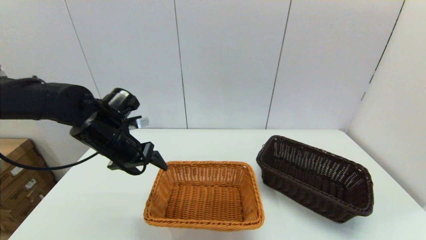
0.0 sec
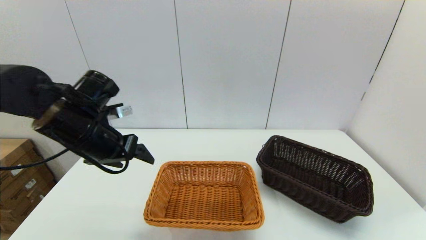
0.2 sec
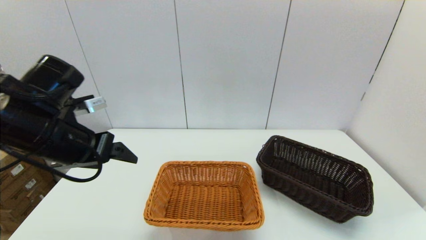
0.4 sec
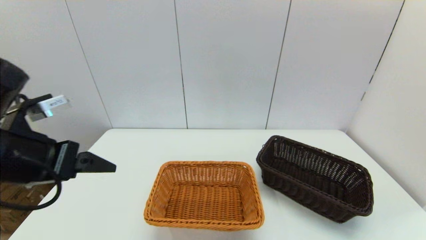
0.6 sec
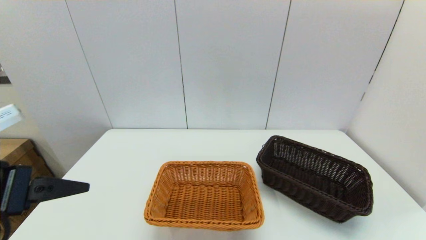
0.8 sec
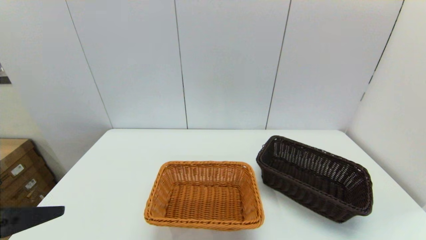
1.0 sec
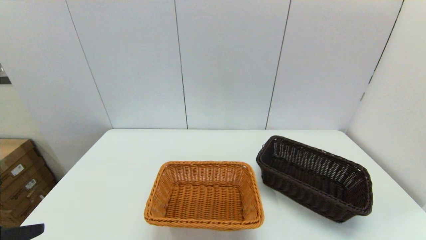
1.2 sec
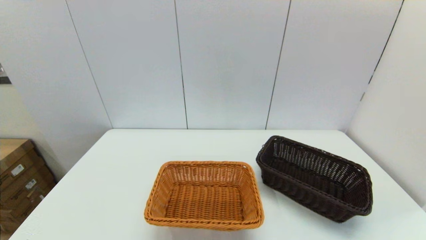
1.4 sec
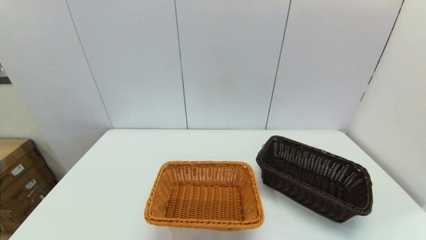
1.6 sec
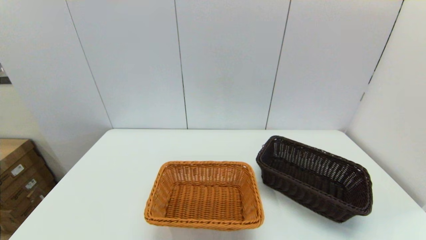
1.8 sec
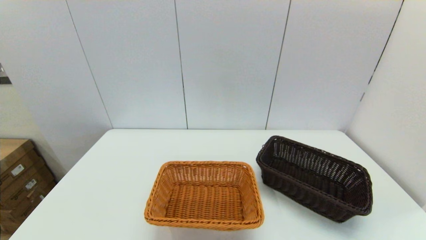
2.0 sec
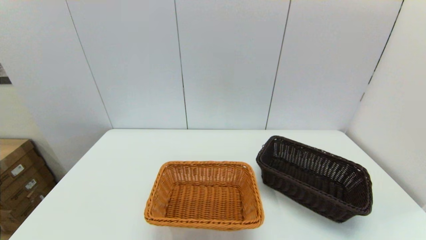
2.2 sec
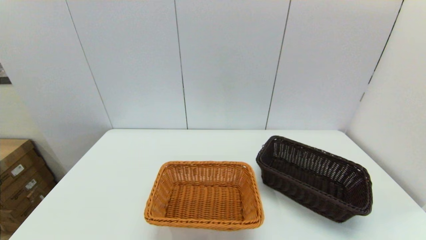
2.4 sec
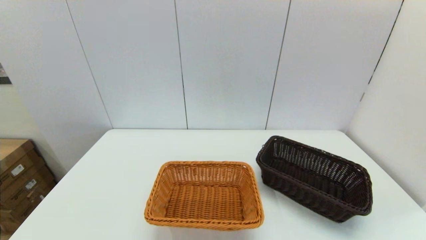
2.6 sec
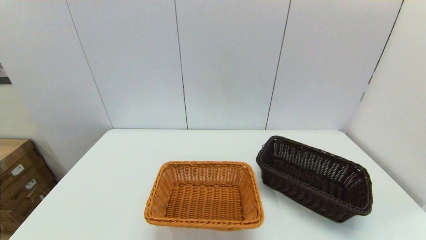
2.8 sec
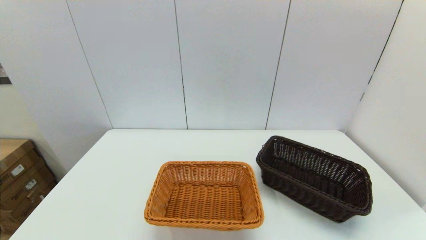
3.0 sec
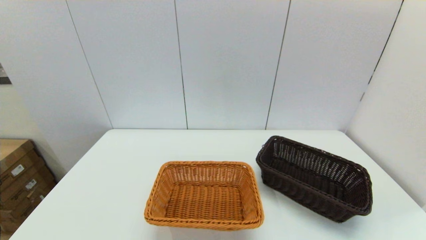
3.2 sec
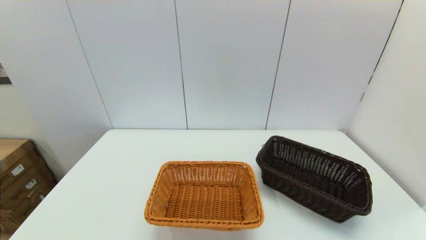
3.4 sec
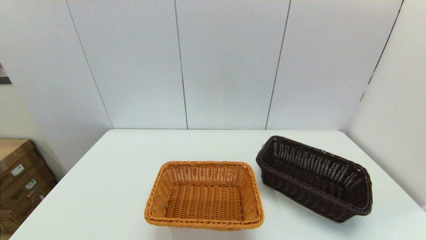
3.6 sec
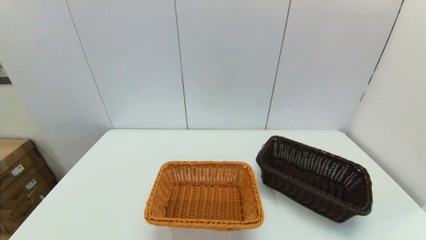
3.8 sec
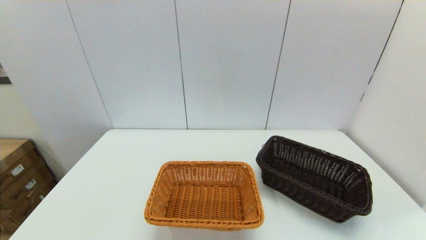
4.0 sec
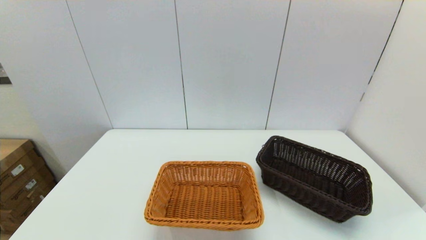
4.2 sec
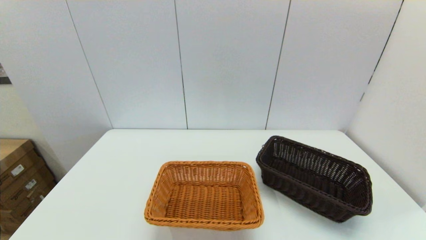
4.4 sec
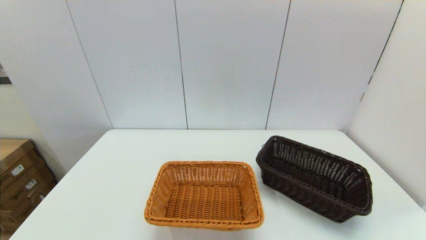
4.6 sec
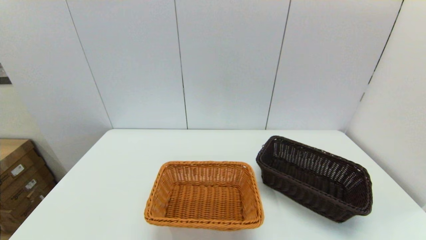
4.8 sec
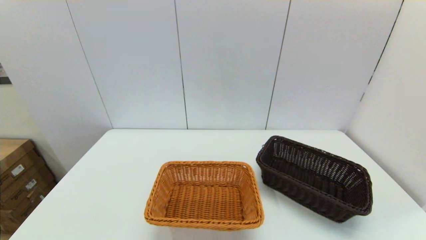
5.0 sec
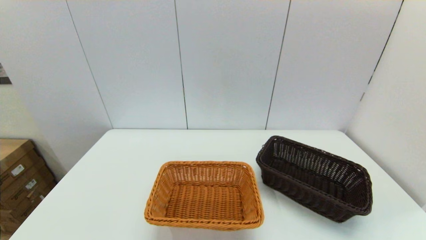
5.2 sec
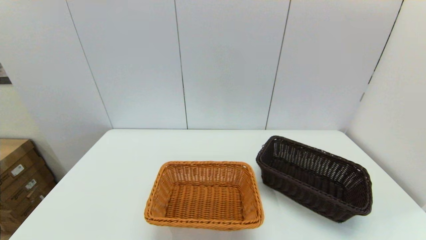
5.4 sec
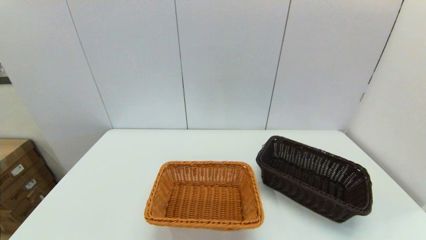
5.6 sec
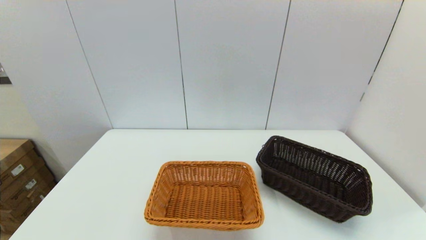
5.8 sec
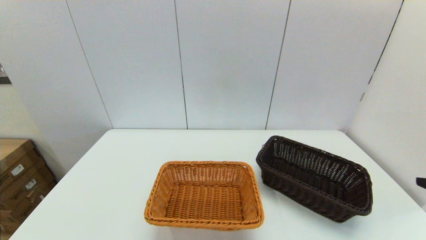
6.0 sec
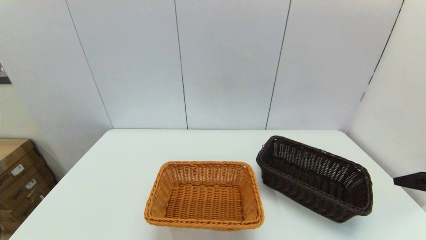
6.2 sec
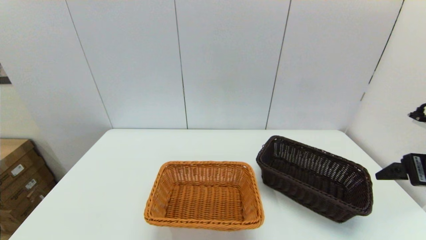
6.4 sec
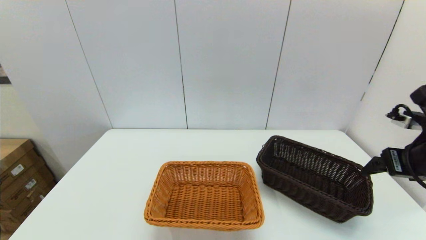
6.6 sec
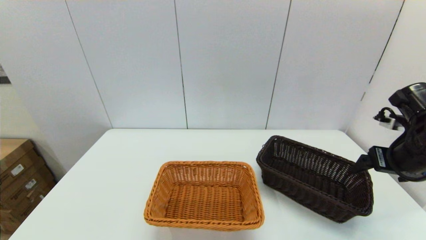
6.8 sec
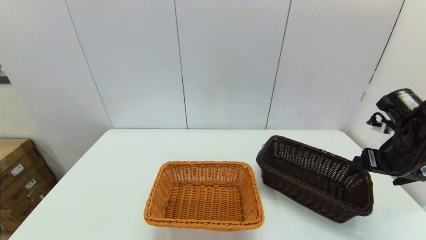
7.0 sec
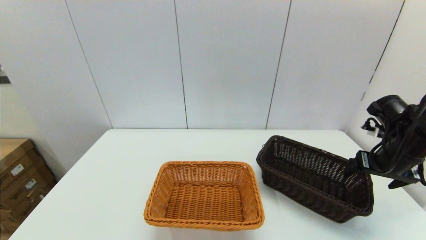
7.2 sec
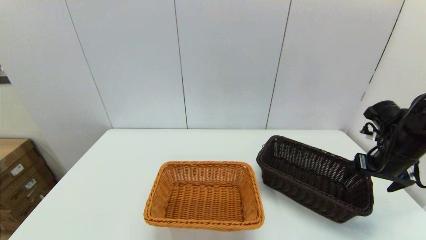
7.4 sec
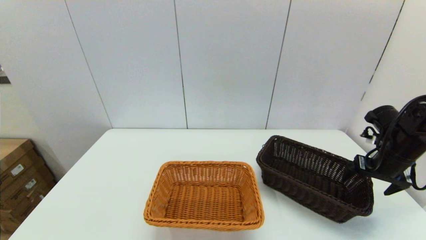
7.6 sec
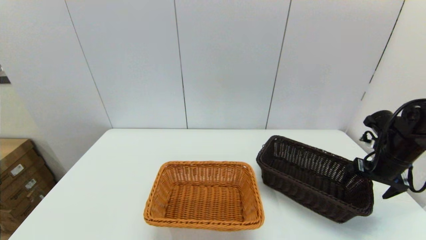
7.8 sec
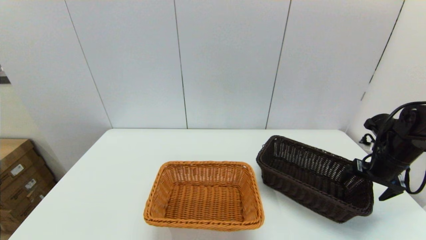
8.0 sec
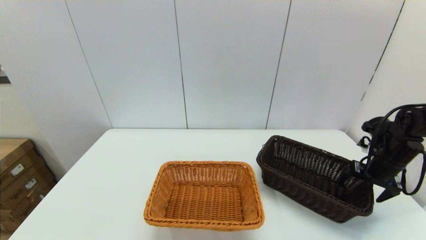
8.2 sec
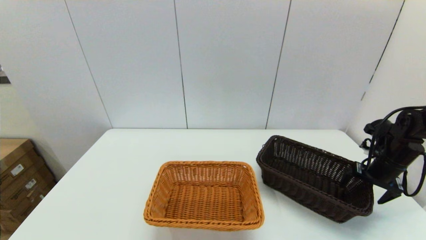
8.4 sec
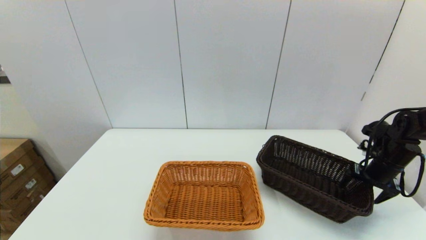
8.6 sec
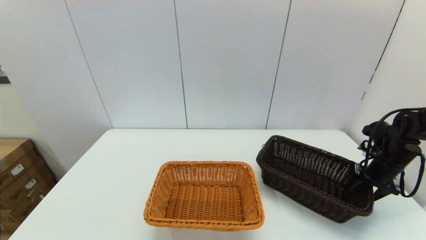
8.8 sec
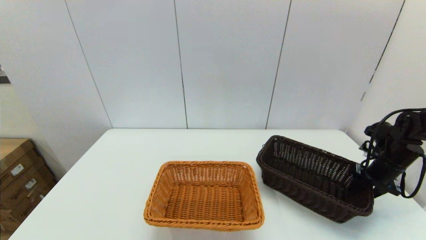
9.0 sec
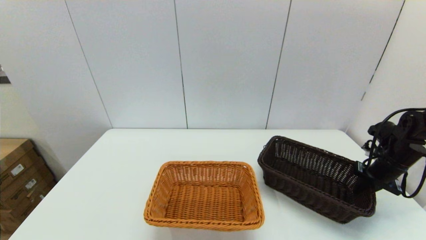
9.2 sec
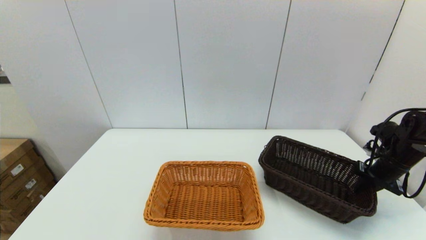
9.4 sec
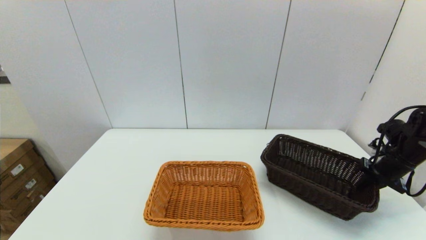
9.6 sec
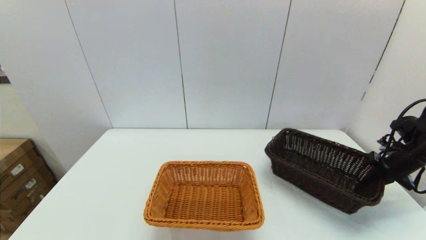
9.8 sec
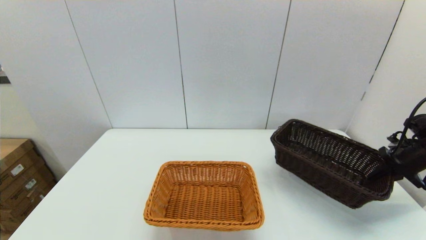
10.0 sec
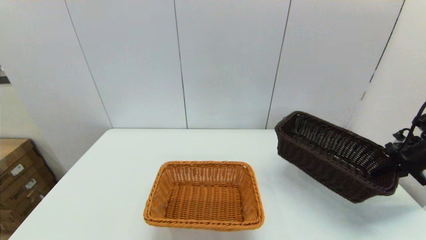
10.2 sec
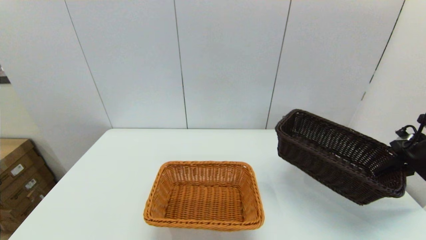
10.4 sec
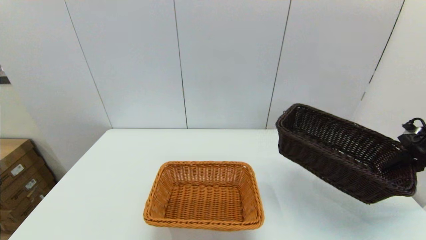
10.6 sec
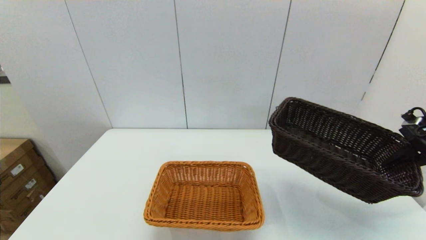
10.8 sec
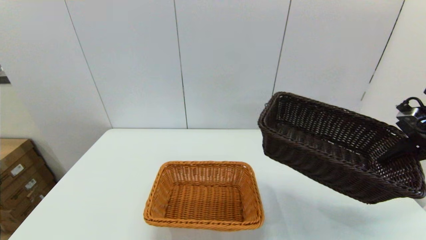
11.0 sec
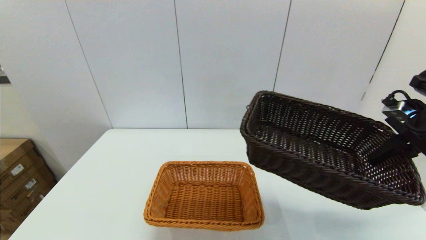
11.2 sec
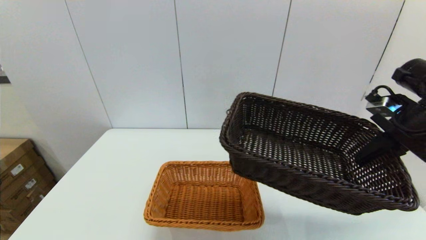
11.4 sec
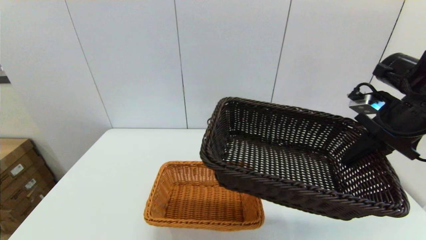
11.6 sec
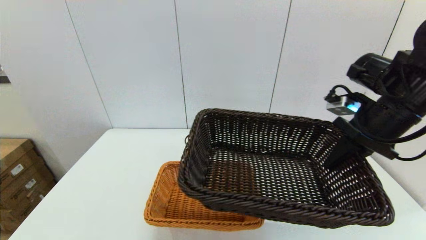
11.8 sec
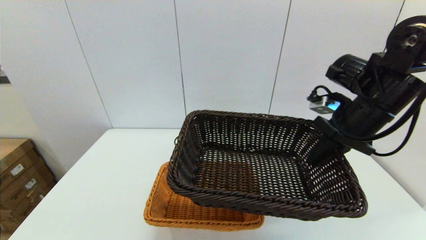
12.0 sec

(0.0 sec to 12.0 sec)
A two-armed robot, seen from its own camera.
Task of the whole recording: stack a basket on top of another basket.
Step, 0.2 sec - 9.0 sec: Grasp the dark basket with the right gripper.
0.0 sec - 1.6 sec: The left gripper goes some 30 cm backward.
6.0 sec - 7.6 sec: The right gripper goes about 25 cm forward and downward.
7.6 sec - 9.0 sec: The right gripper goes about 5 cm downward, and closes up.
9.0 sec - 10.4 sec: The right gripper travels upward and to the right by some 10 cm.
10.4 sec - 12.0 sec: The right gripper moves to the left and upward, roughly 25 cm.

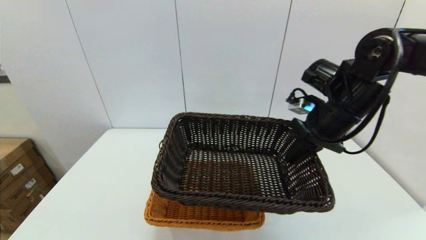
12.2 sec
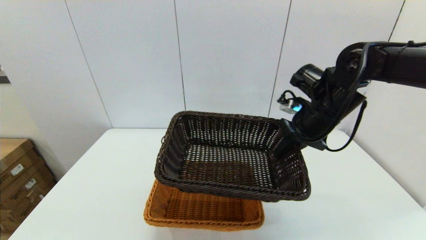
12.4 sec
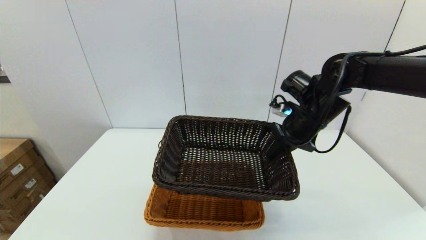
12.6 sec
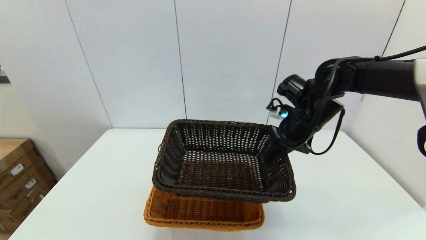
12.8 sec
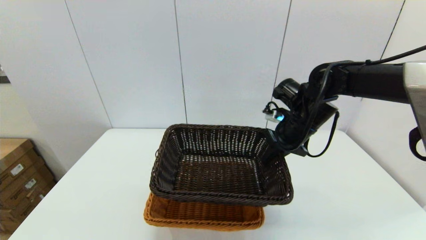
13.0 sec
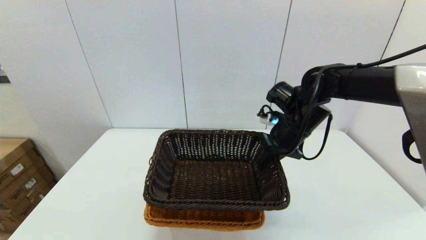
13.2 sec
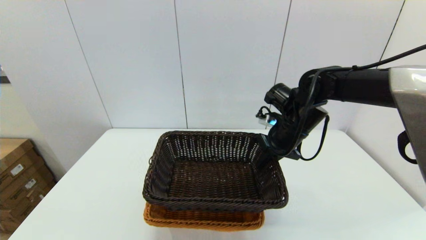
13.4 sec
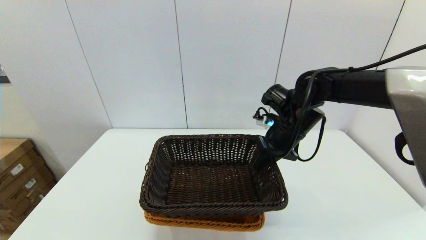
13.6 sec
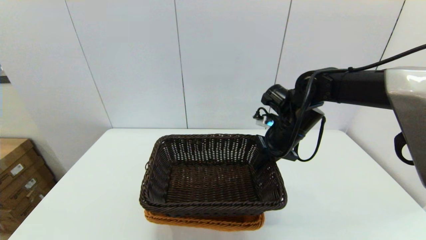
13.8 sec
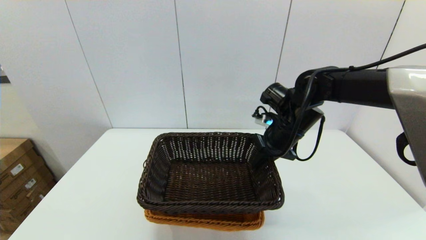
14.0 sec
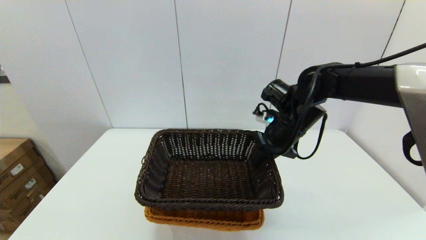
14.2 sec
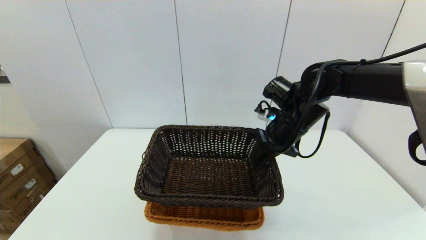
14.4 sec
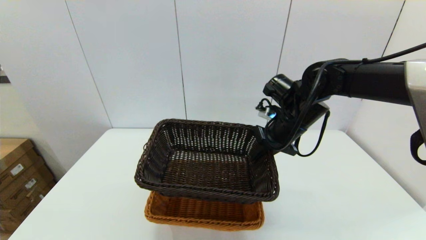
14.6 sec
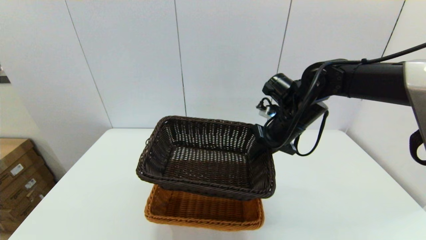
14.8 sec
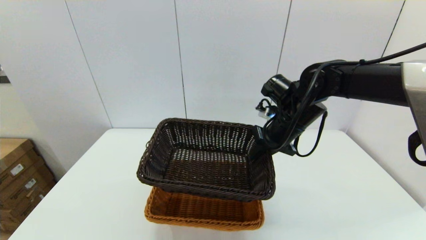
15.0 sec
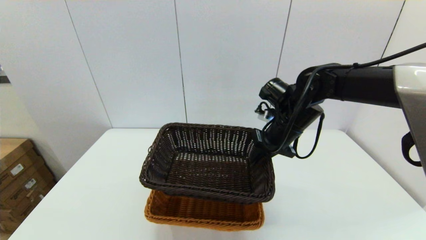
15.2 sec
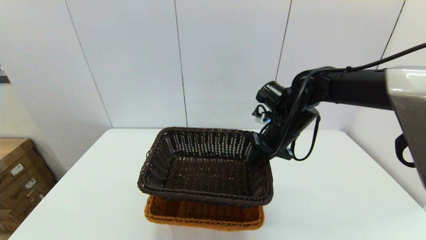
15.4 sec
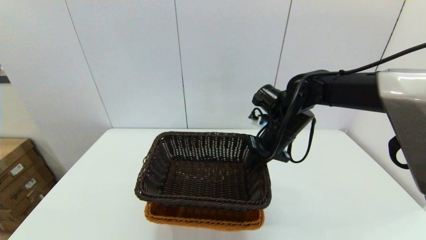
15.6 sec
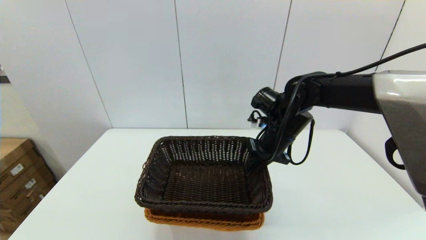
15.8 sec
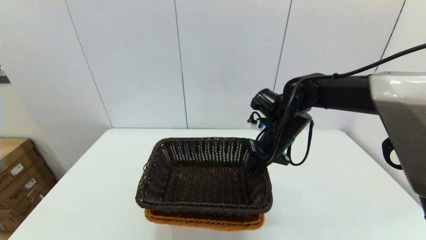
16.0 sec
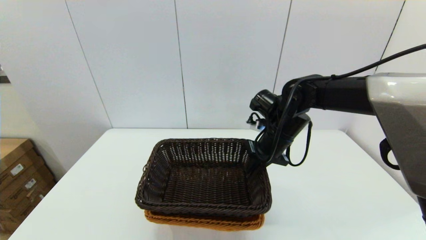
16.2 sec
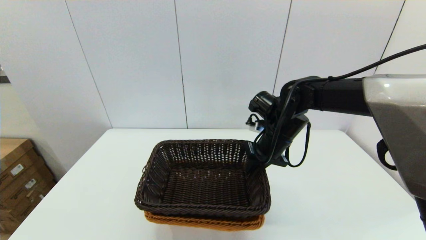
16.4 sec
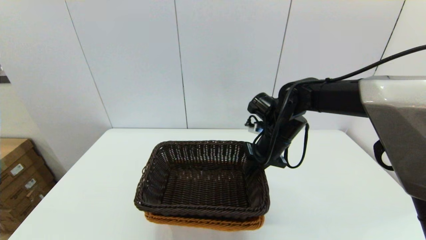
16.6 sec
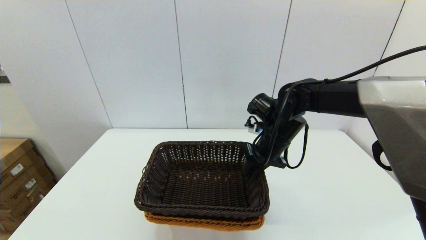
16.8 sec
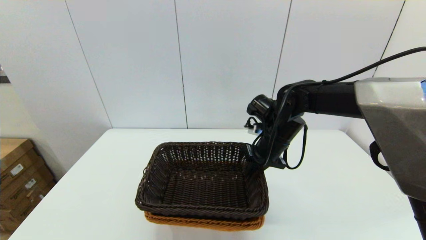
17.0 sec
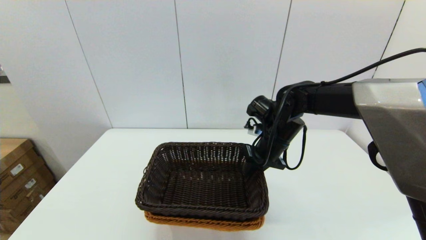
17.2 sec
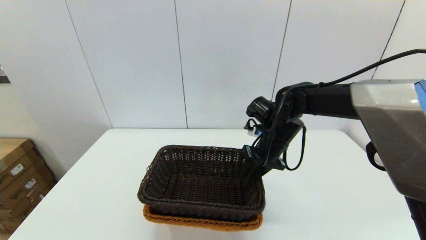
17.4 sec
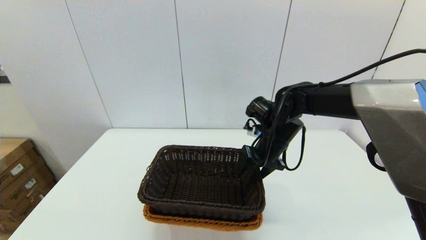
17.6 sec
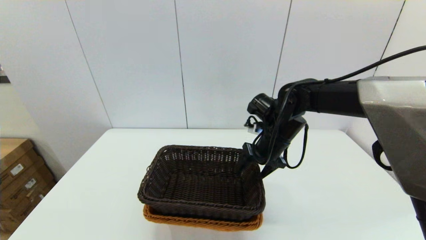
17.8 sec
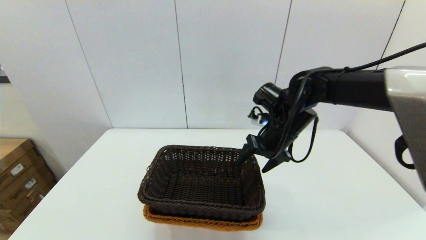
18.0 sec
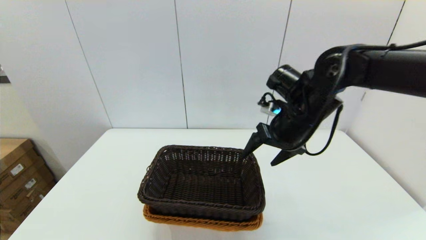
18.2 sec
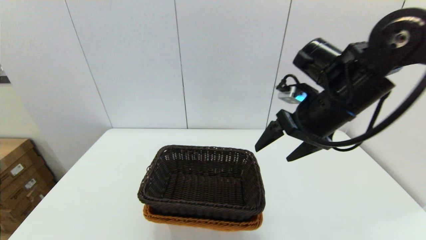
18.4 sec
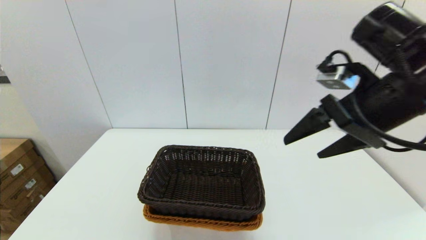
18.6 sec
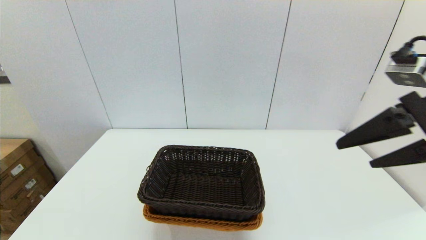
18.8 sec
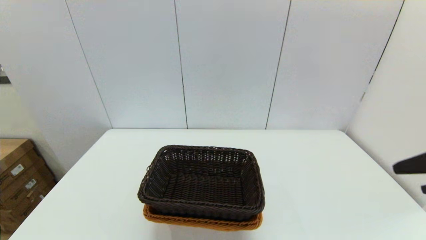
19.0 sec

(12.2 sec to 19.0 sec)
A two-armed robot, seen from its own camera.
Task of the whole recording: stack a basket on top of another basket.
Step, 12.2 sec - 18.0 sec: Place the dark basket into the light color basket with the right gripper.
12.2 sec - 13.6 sec: The right gripper moves downward and to the left, approximately 10 cm.
13.6 sec - 16.2 sec: The grippers make only small movements.
16.2 sec - 17.6 sec: The right gripper opens.
17.6 sec - 19.0 sec: The right gripper shifts some 35 cm backward, upward and to the right, and opens up.
